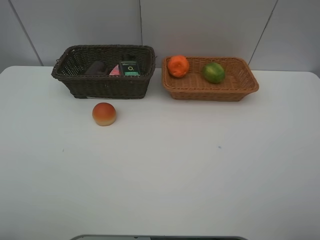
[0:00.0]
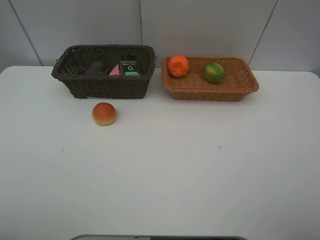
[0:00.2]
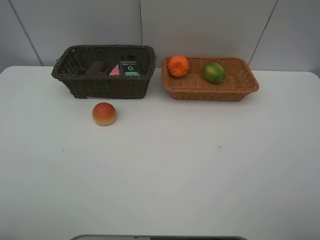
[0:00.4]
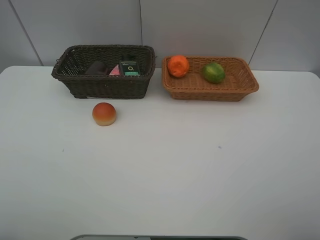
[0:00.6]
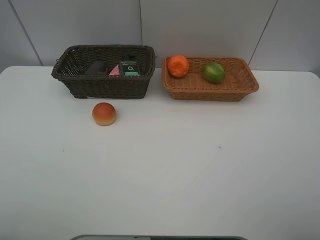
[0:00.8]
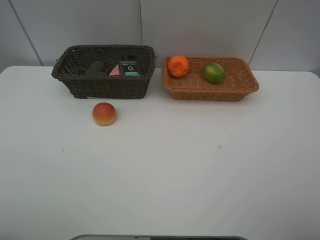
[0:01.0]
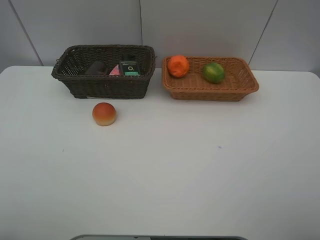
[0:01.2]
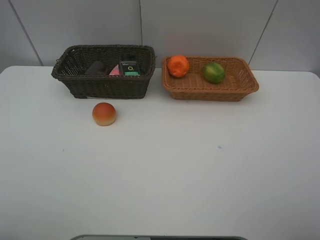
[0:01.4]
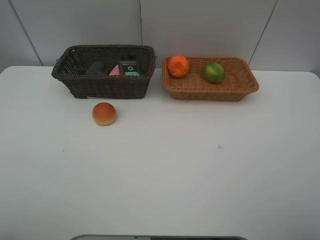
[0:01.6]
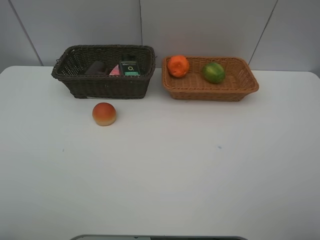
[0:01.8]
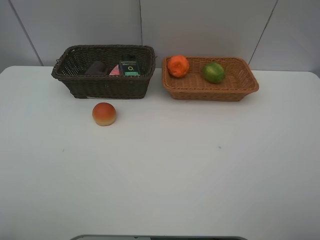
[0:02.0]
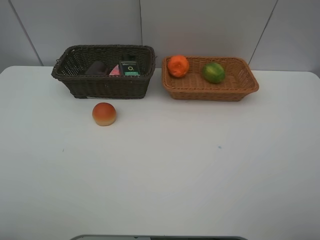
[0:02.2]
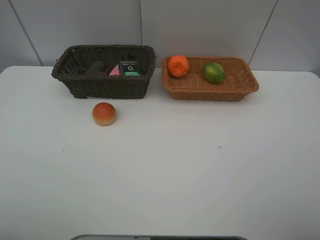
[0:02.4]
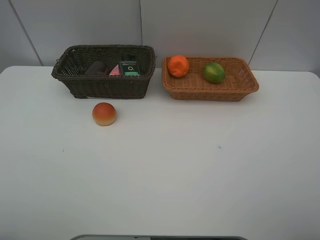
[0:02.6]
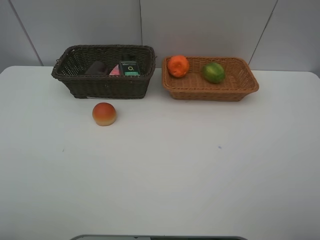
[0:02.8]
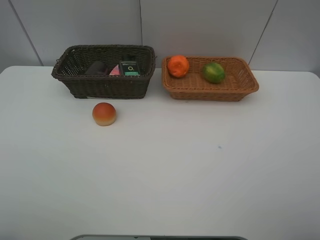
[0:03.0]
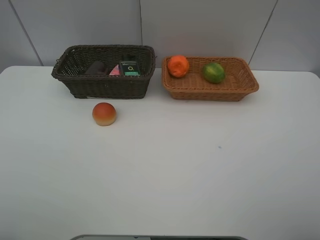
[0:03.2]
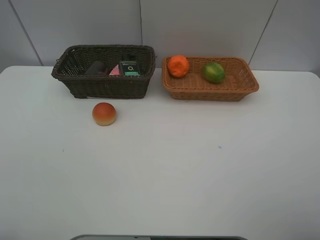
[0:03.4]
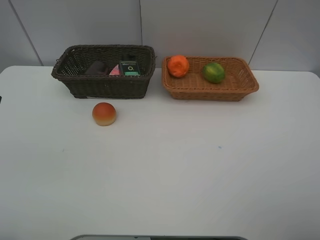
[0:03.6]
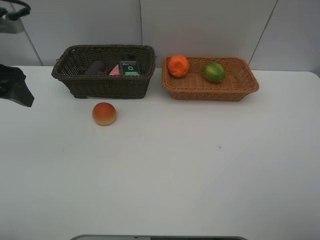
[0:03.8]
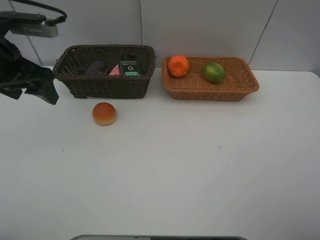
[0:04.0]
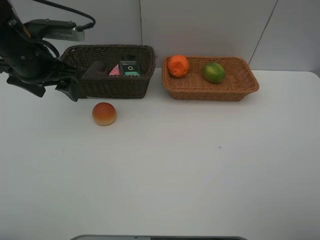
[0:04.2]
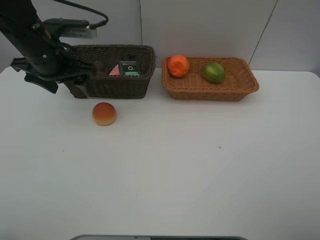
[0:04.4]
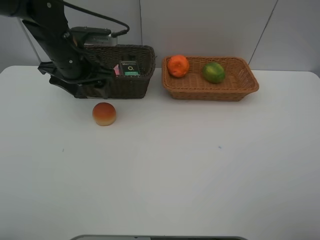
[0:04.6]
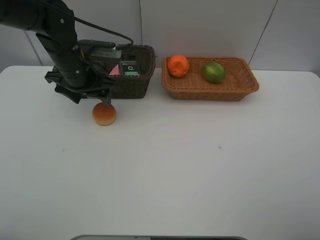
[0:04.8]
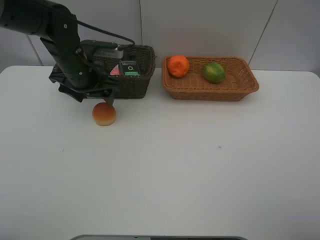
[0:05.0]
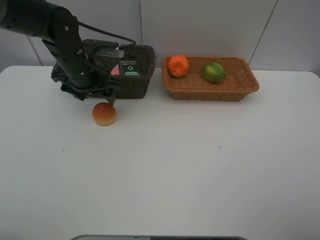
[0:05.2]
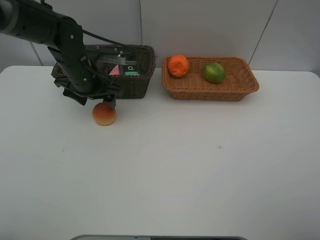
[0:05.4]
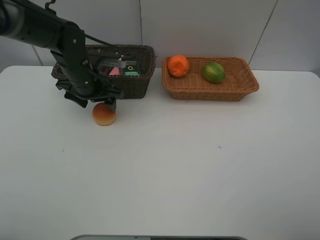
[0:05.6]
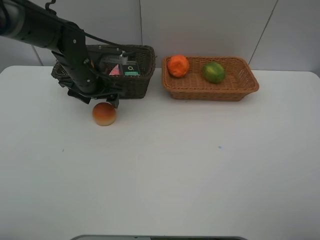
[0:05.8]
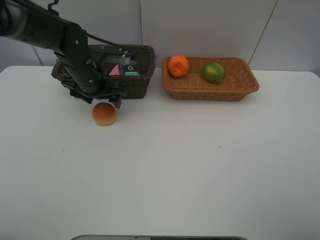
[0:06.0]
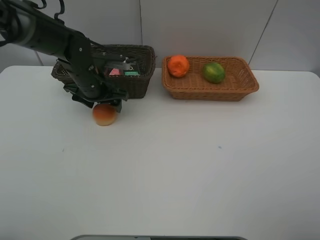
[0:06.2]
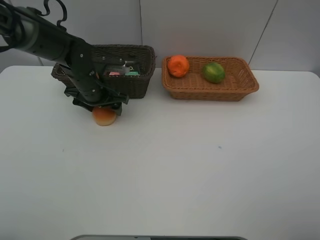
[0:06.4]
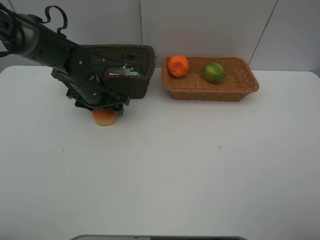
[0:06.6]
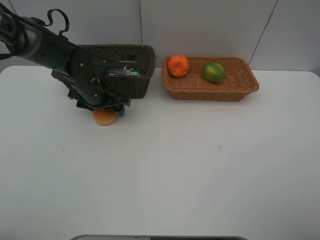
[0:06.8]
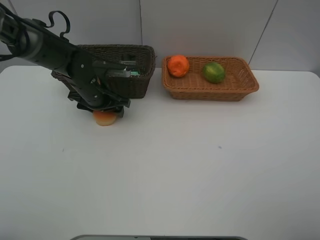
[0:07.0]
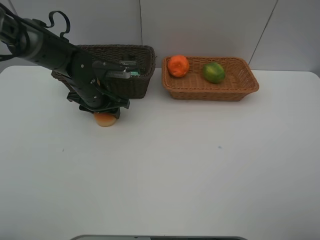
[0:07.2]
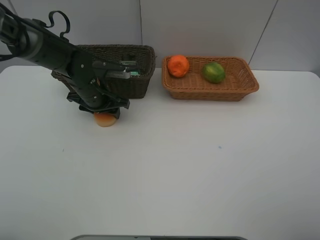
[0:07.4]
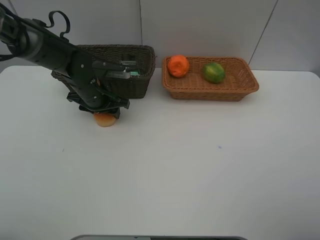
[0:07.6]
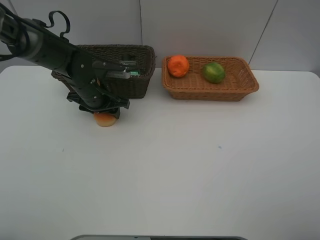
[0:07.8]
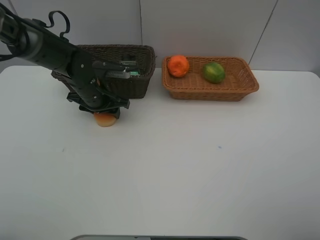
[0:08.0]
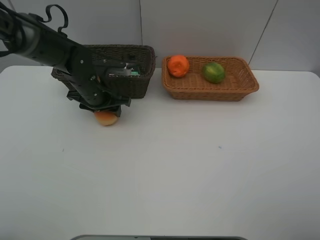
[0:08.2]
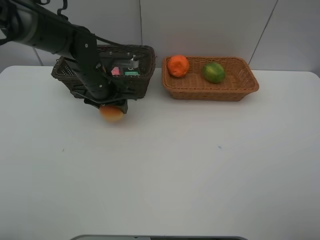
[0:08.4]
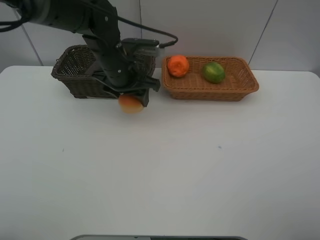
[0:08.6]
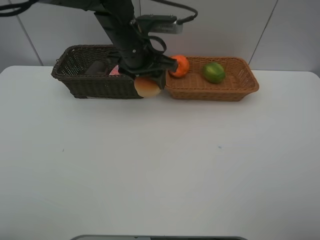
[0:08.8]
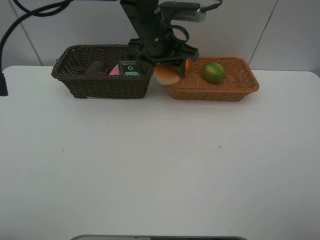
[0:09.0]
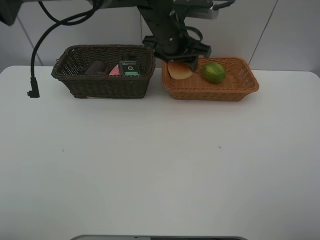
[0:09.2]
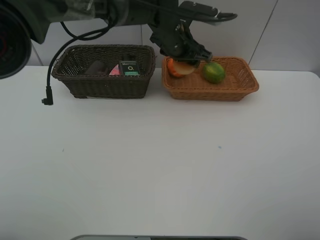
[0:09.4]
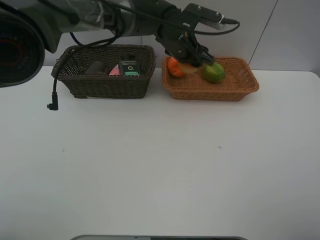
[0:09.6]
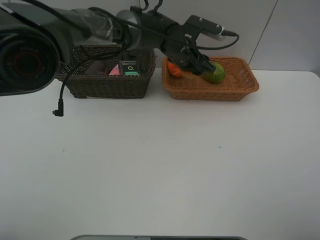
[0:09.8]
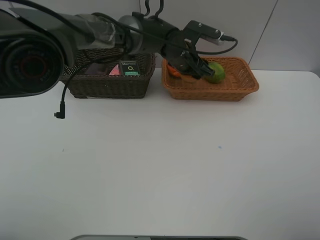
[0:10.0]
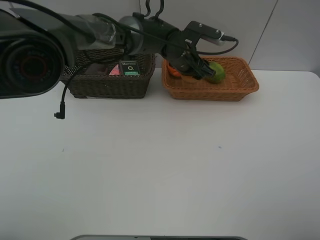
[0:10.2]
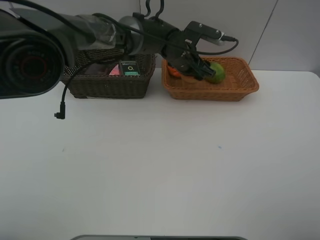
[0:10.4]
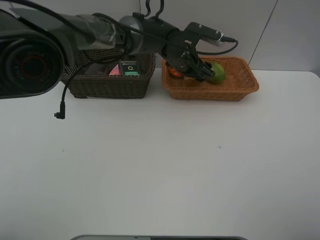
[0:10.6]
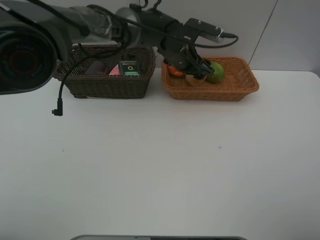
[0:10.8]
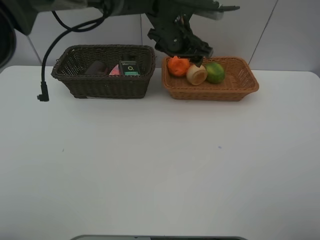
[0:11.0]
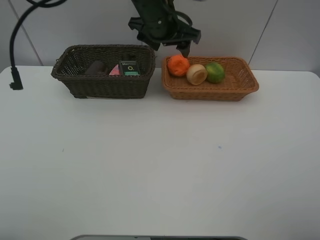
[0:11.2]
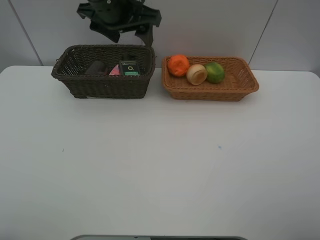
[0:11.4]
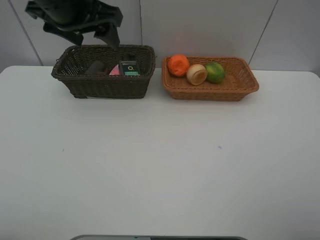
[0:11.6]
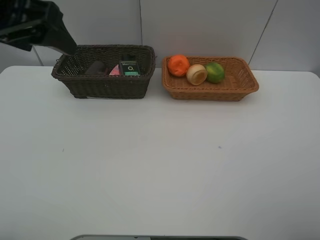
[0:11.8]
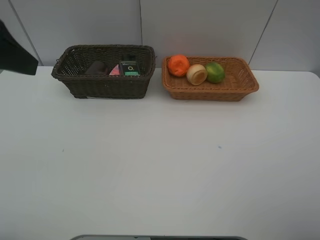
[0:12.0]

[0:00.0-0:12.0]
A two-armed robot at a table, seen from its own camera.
Task of the whole recording: place multiple objects separately in different baskets.
0:03.0 to 0:04.4: The left gripper moves forward, some 30 cm.
0:04.4 to 0:06.0: The left gripper moves downward, approximately 10 cm.
0:06.0 to 0:07.6: The left gripper closes its fingers.
0:07.6 to 0:09.0: The left gripper goes about 20 cm to the right and upward.
0:09.0 to 0:10.4: The left gripper heads downward and to the right, covering roughly 10 cm, and opens.
0:10.4 to 0:12.0: The left gripper heads to the left, backward and upward, covering approximately 50 cm, and opens.

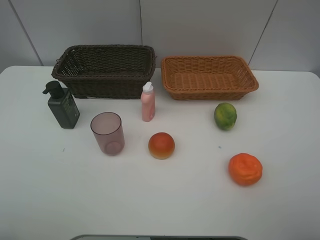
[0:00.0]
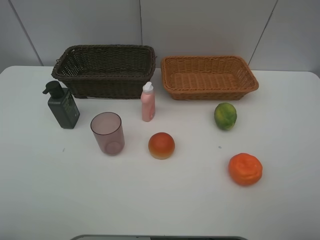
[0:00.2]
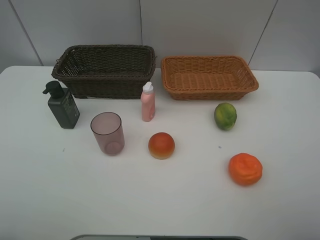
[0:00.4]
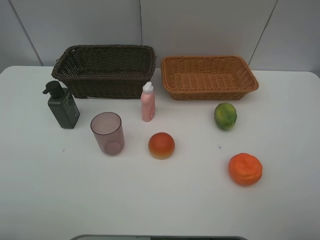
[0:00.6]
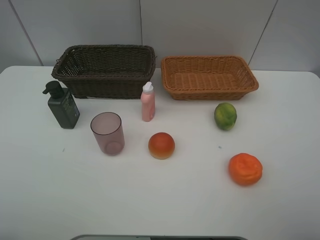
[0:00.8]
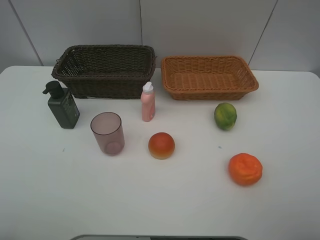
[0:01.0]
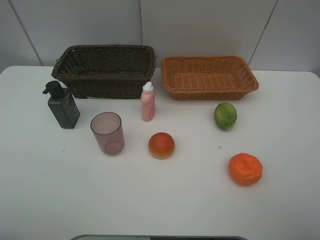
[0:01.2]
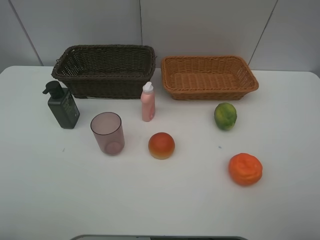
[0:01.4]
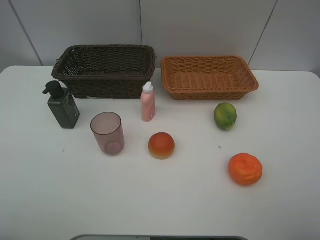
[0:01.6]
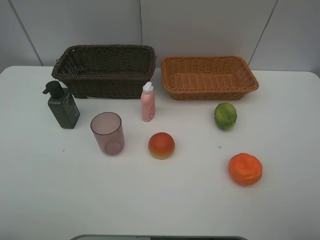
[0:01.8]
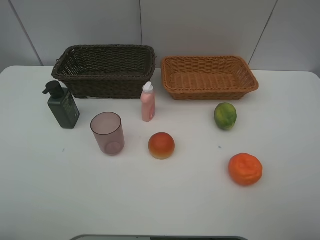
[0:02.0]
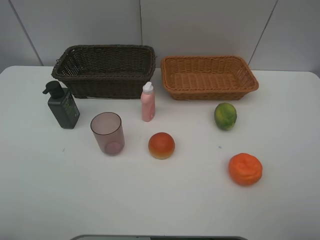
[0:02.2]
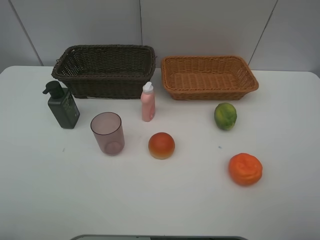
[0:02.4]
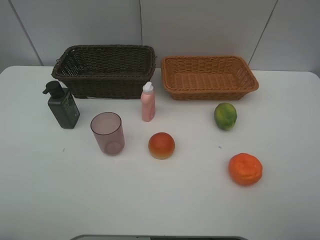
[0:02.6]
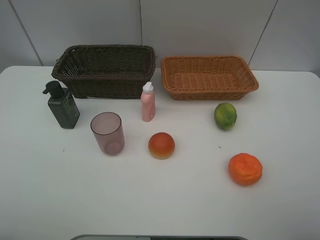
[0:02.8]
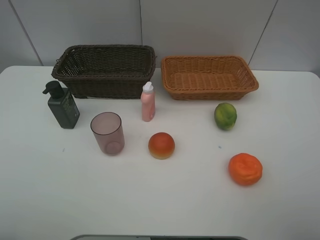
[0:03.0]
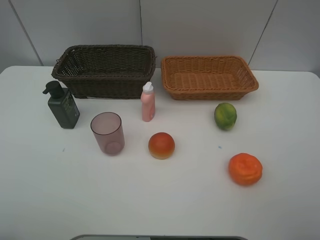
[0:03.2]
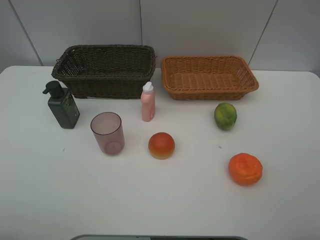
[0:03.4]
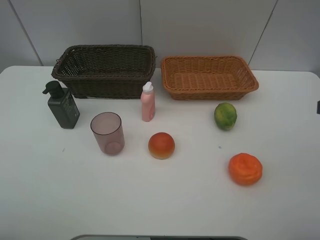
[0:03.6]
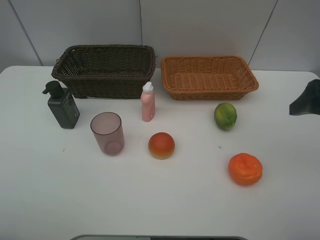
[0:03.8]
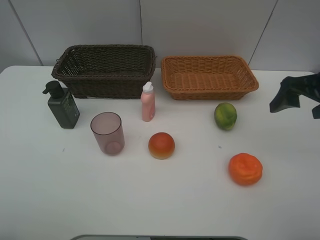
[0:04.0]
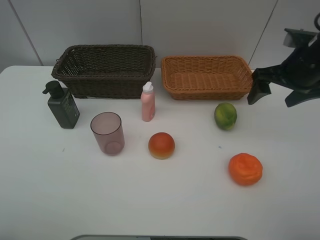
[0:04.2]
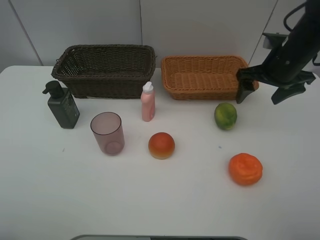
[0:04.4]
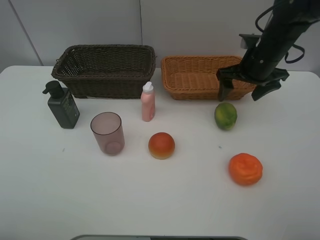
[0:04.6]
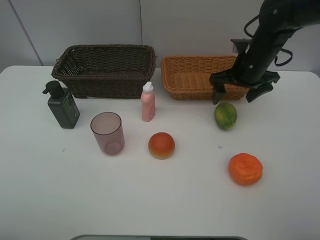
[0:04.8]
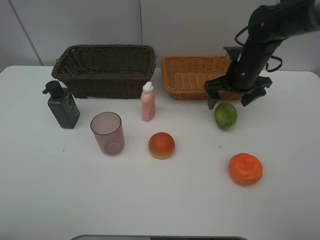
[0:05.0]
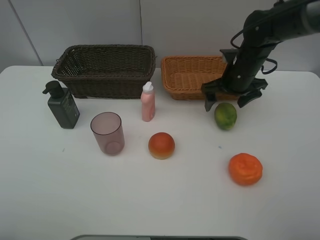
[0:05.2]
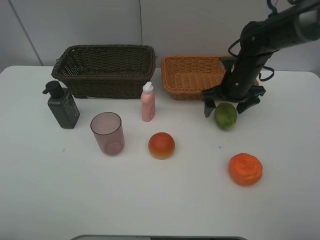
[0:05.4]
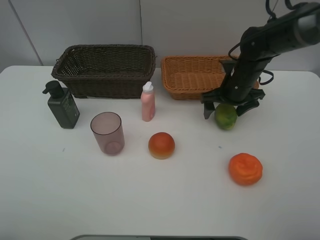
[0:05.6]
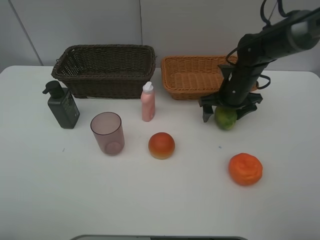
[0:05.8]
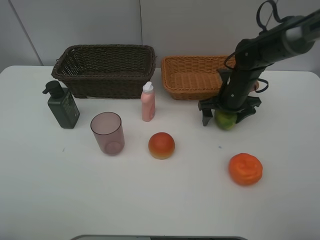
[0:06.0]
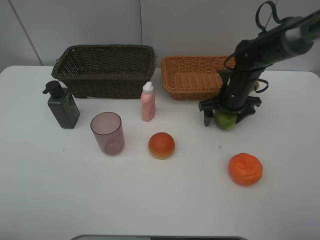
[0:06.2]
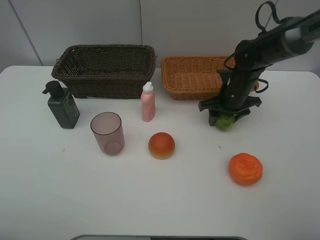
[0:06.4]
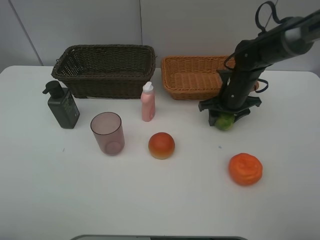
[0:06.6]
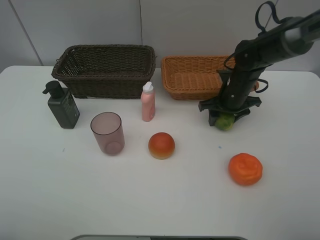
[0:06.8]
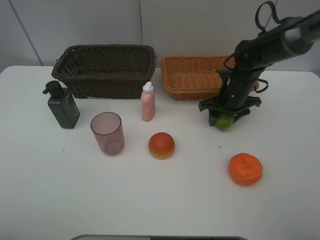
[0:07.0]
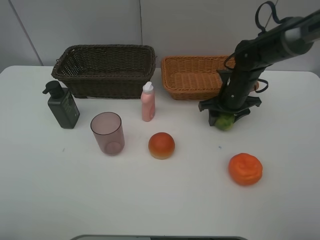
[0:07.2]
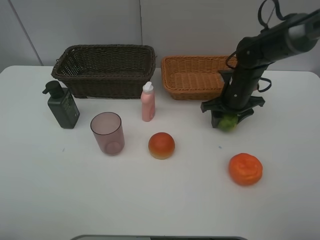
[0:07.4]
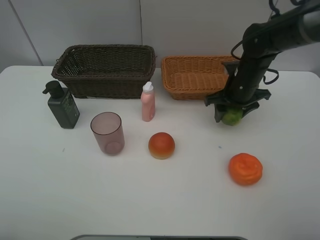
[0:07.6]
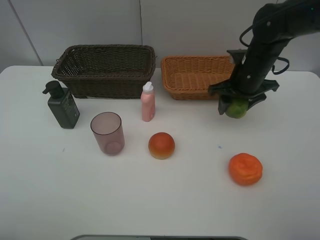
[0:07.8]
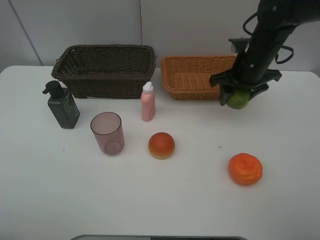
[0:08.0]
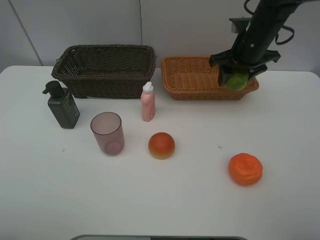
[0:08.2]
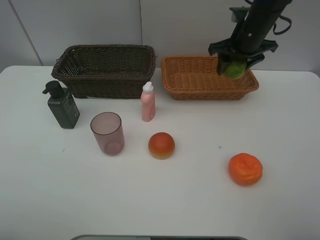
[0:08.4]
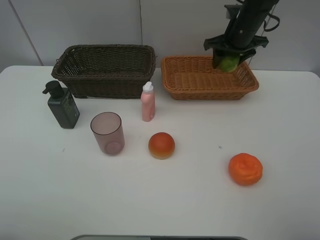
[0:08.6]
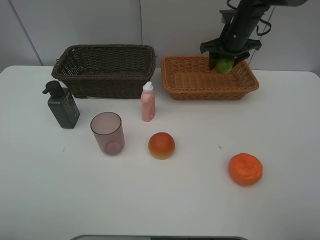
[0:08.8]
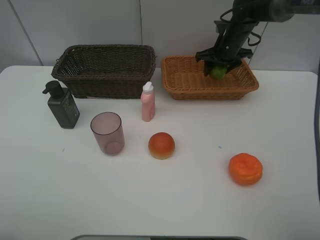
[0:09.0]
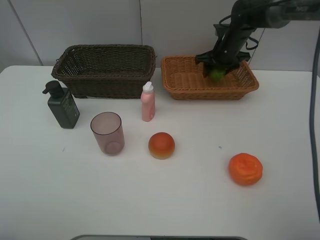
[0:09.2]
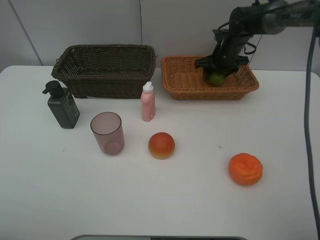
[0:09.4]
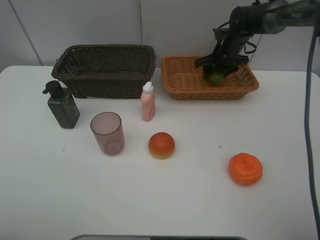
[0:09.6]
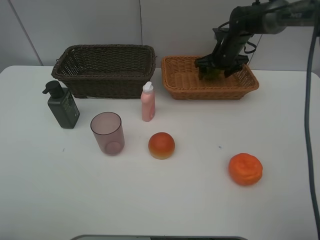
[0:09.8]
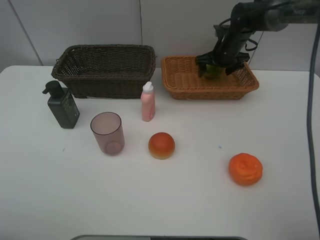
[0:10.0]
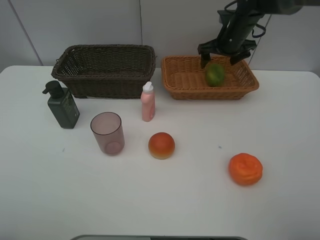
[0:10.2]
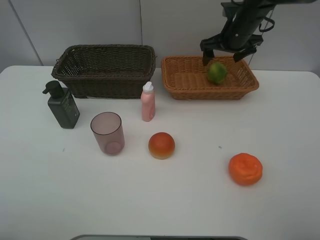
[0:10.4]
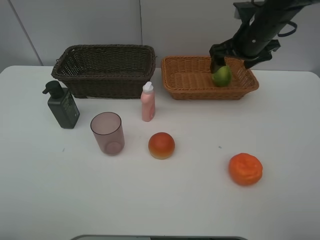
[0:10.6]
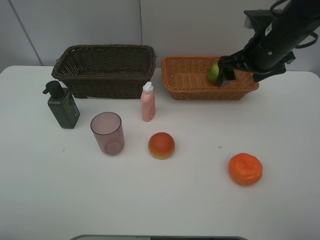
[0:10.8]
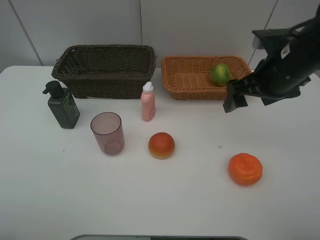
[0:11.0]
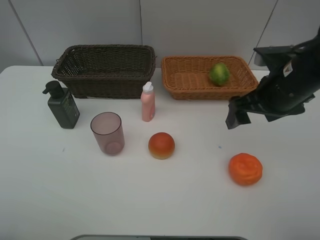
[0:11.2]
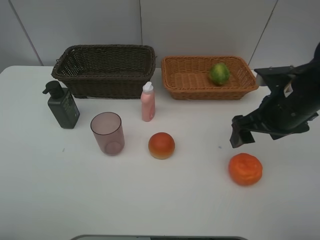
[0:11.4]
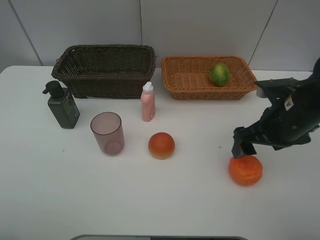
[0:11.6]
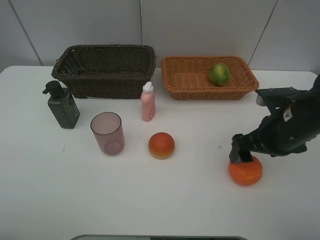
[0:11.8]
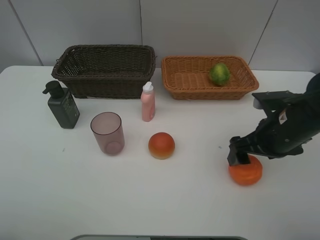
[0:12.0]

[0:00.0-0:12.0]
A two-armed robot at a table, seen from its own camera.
Task of the whole recording: place multiple objects separately in different baskets.
0:00.0 to 0:01.6: Both grippers stay put.
0:03.0 to 0:04.4: The right gripper goes some 30 cm forward.
0:04.4 to 0:06.0: The right gripper moves downward and to the left, approximately 10 cm.
0:06.0 to 0:07.6: The right gripper closes.
0:07.6 to 0:09.0: The right gripper heads forward, covering about 15 cm.
0:09.0 to 0:10.4: The right gripper travels upward by some 5 cm, and opens its fingers.
0:10.4 to 0:12.0: The right gripper moves backward, some 25 cm.
